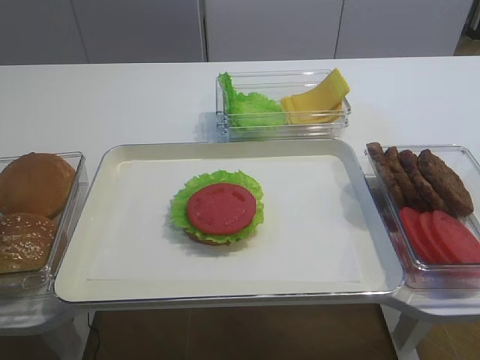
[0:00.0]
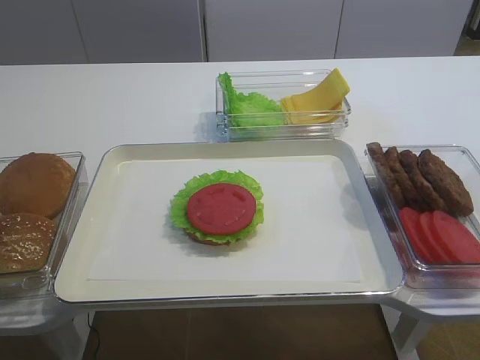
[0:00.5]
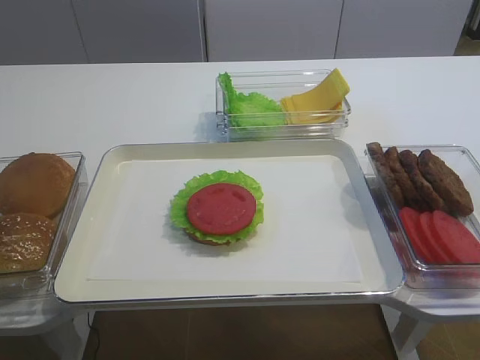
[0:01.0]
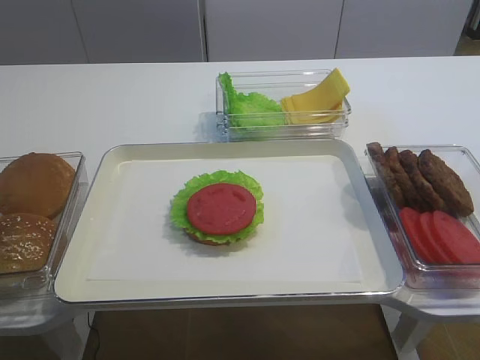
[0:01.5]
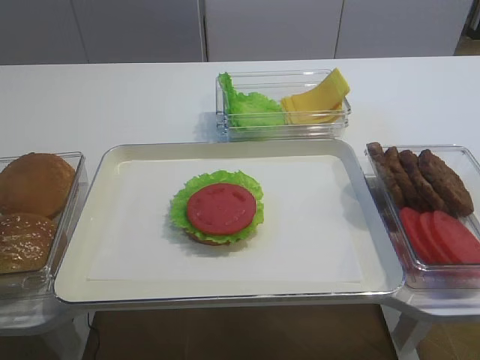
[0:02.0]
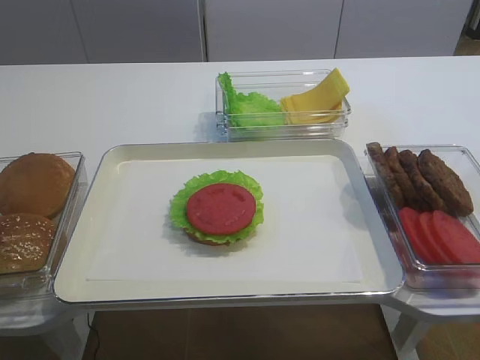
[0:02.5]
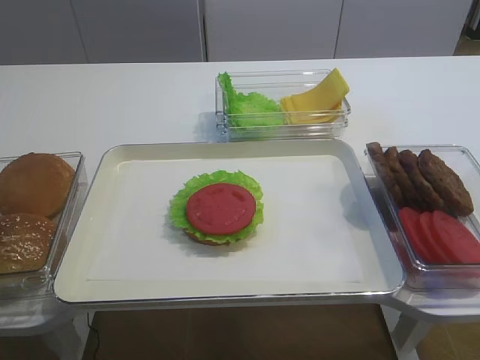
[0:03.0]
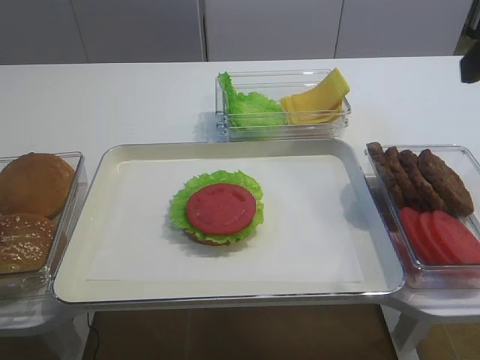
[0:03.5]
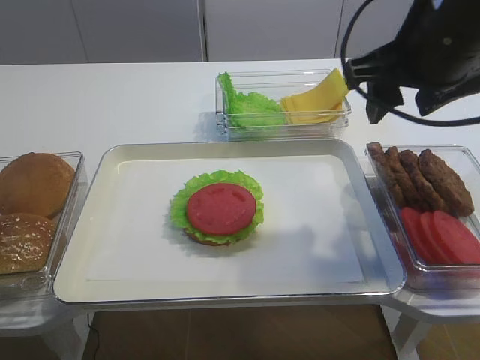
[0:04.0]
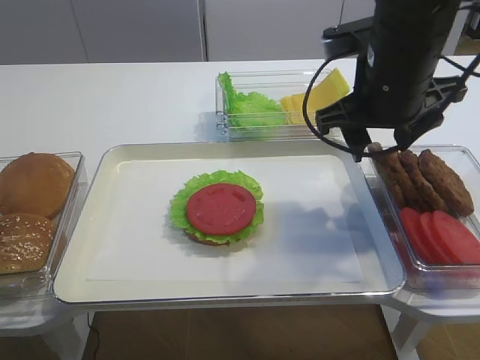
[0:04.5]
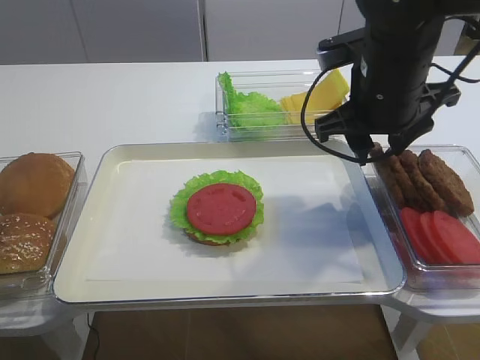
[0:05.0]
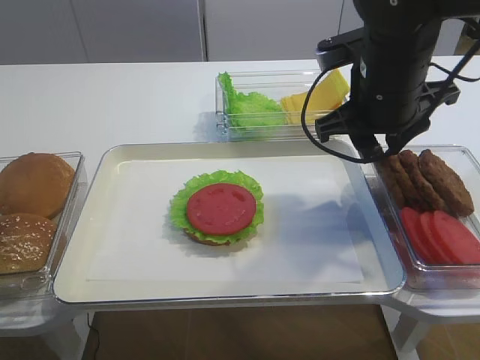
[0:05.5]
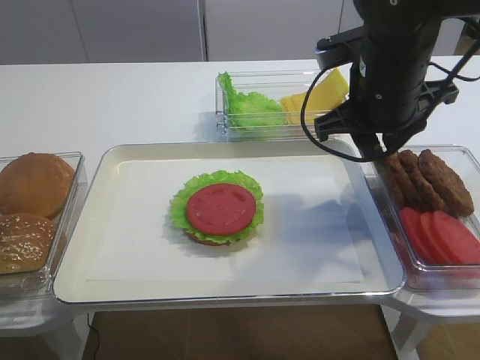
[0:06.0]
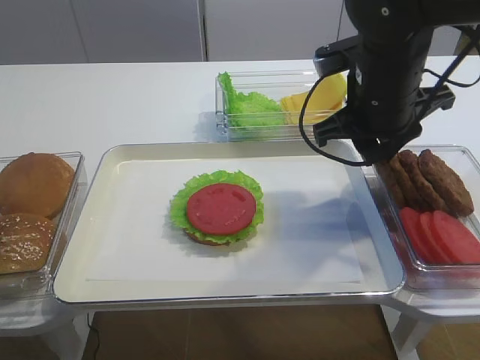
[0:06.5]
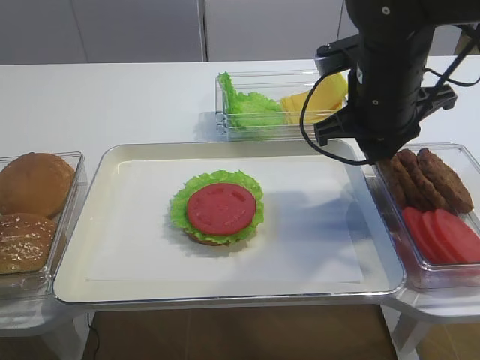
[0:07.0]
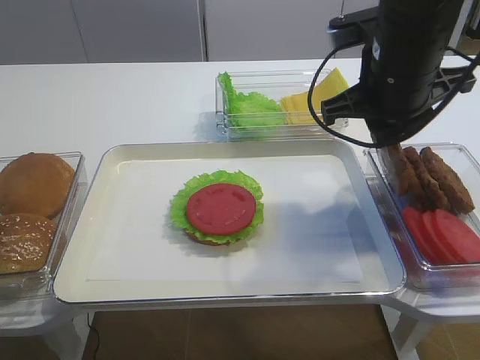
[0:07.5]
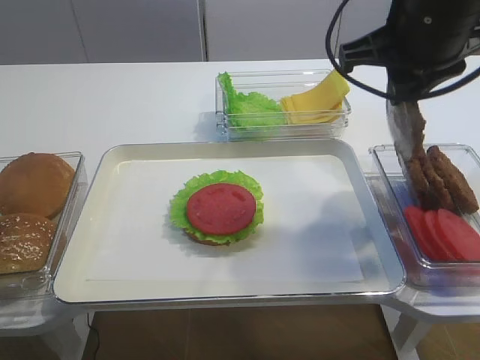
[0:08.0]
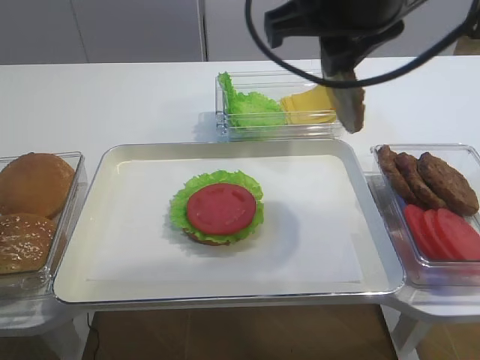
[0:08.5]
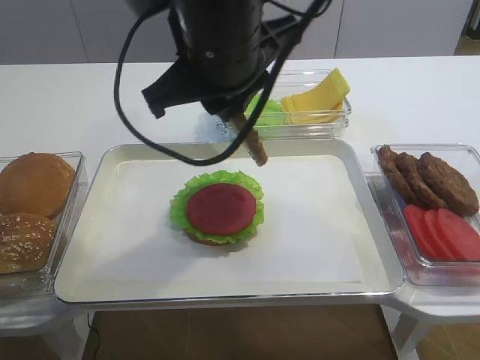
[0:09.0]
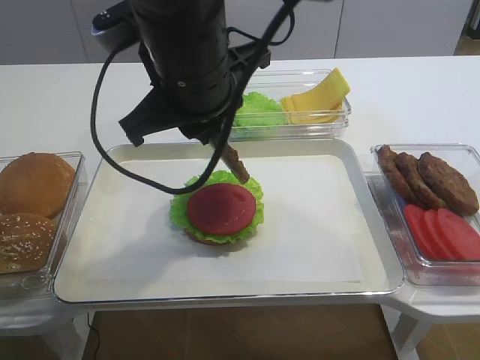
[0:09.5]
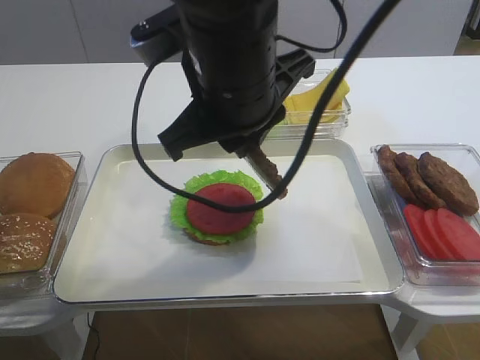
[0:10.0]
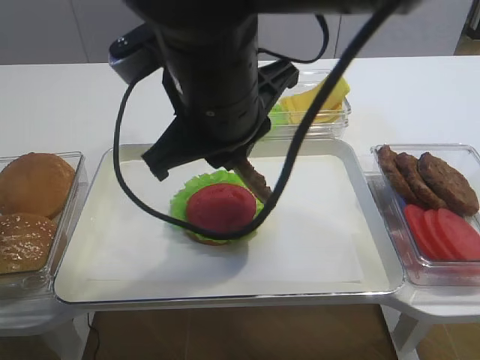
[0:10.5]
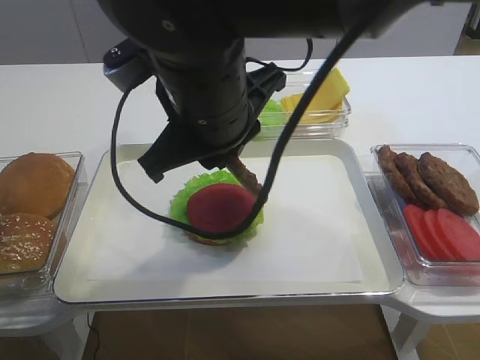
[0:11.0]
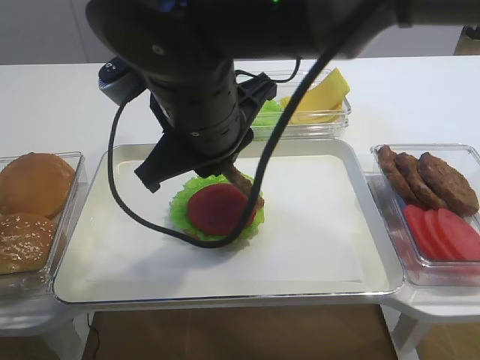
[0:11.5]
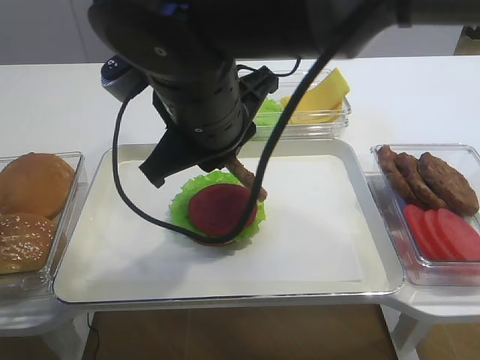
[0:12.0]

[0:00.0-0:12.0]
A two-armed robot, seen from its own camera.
Step, 0:00.0 to 0:07.5: Pick up the cutlet with the right gripper.
0:02.0 to 0:04.0: The right gripper goes some 30 cm forward and to the left, and opens its fingers.
0:04.0 to 0:06.0: The right gripper travels downward by roughly 5 cm, and closes its fingers.
0:06.0 to 0:08.0: The right gripper travels upward by approximately 5 cm.
0:08.0 to 0:10.0: The right gripper is displaced to the left by roughly 15 cm.
0:10.0 to 0:12.0: The grippers move only a little.

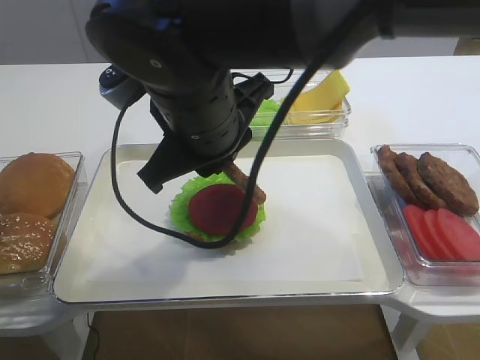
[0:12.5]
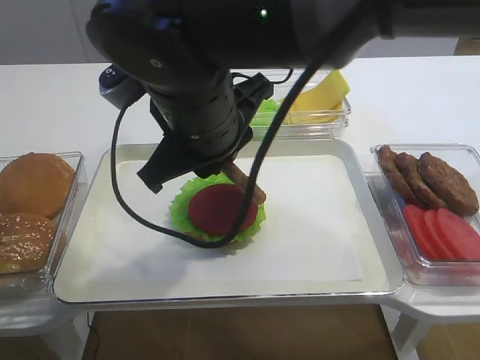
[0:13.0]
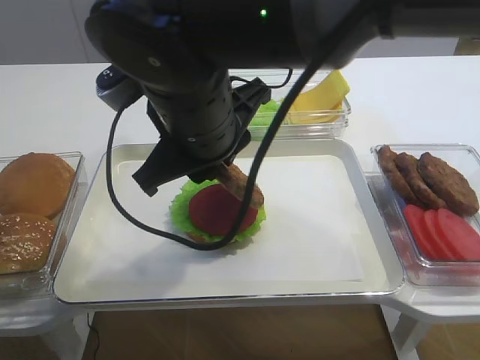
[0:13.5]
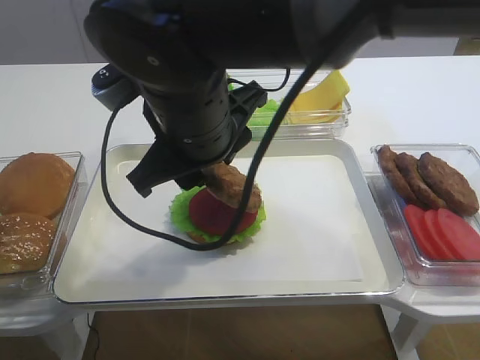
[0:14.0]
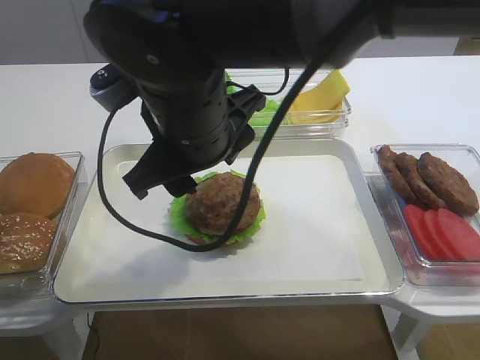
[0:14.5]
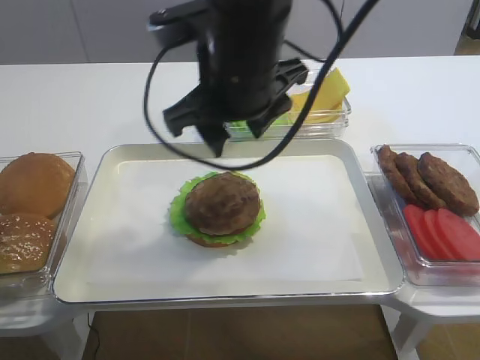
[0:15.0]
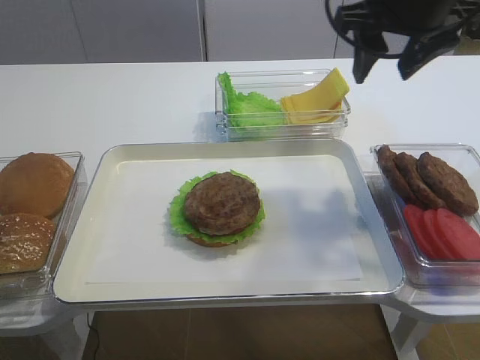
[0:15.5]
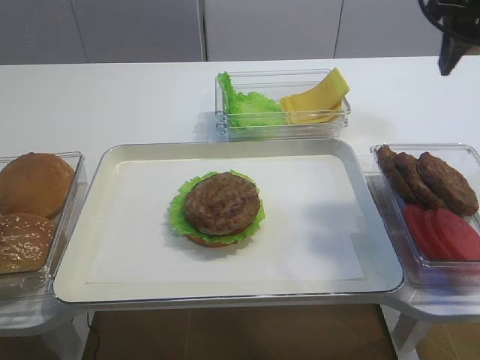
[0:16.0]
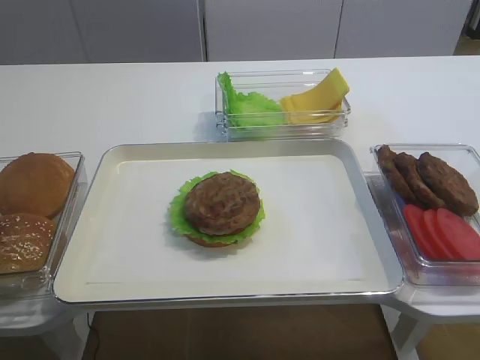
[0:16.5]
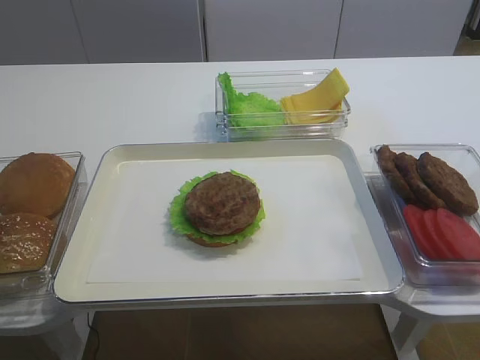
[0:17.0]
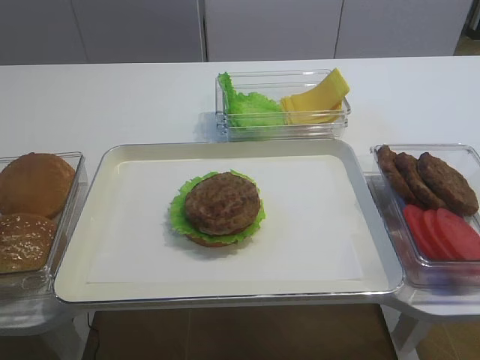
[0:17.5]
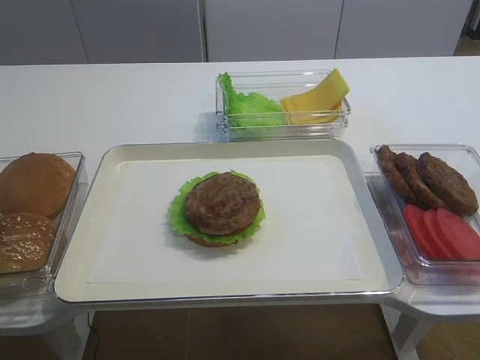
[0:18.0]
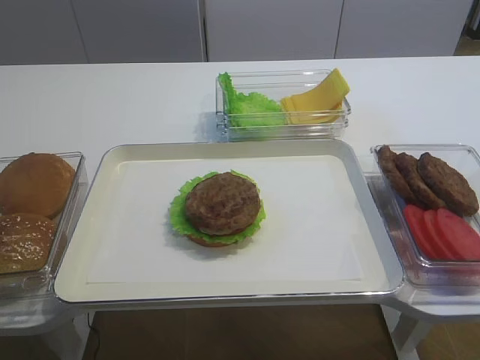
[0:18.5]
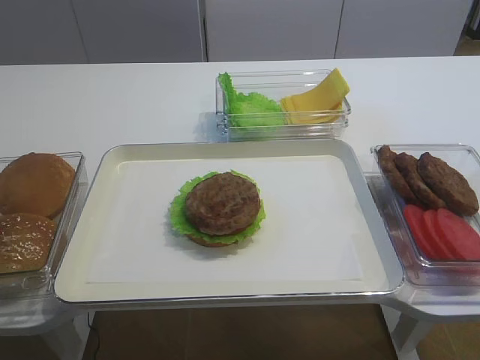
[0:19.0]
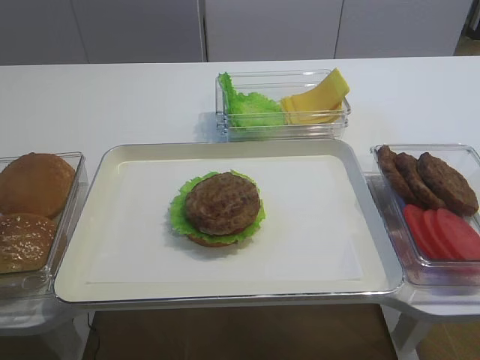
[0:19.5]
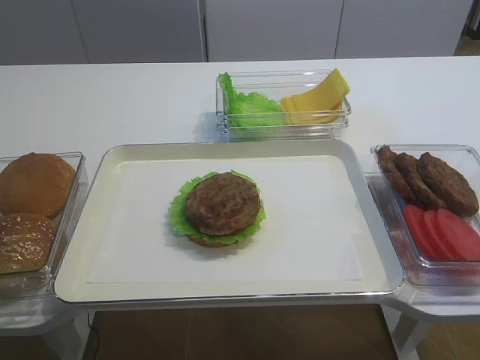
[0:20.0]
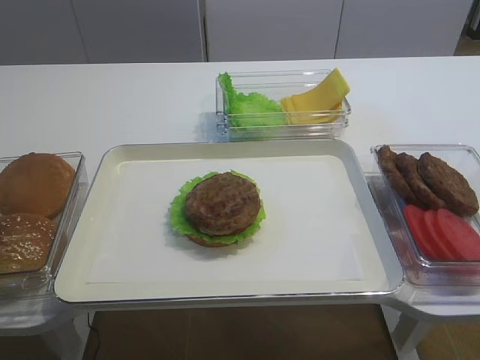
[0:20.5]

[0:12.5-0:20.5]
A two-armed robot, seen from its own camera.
0:12.5 to 0:14.5: The right gripper opens.
0:14.5 to 0:16.5: The right gripper shifts roughly 30 cm to the right.
0:16.5 to 0:18.5: The right gripper is displaced backward and downward by about 25 cm.

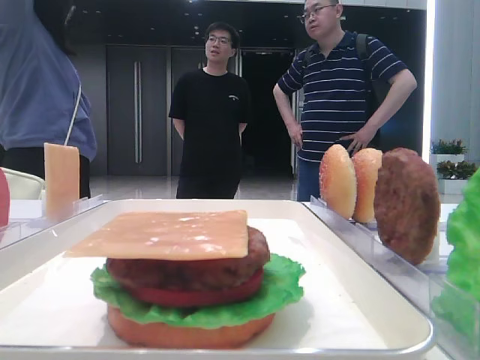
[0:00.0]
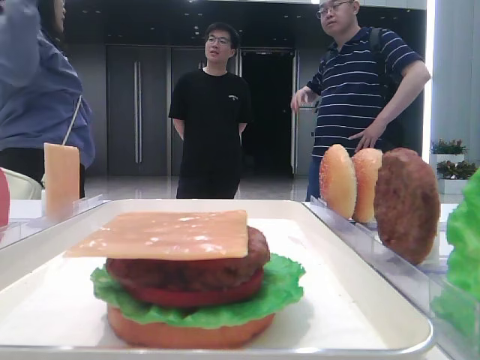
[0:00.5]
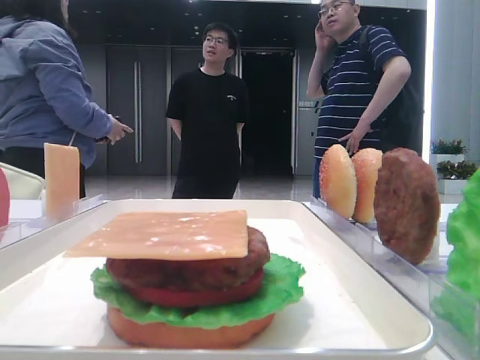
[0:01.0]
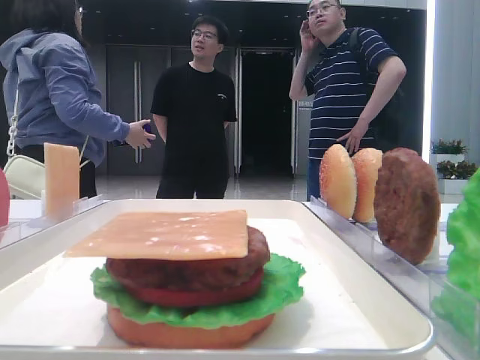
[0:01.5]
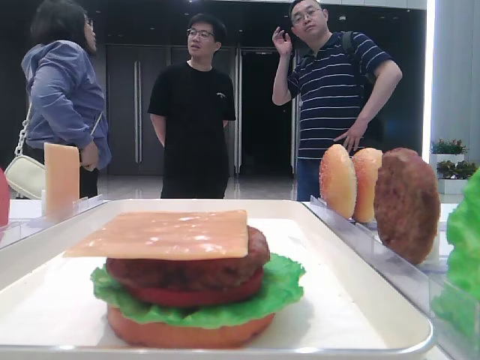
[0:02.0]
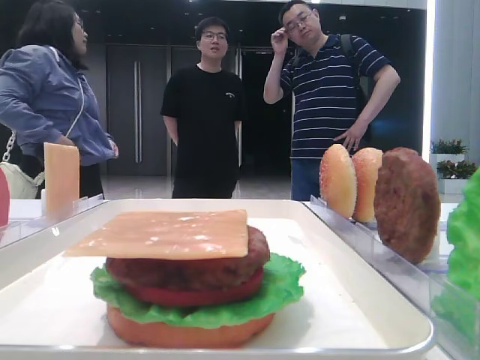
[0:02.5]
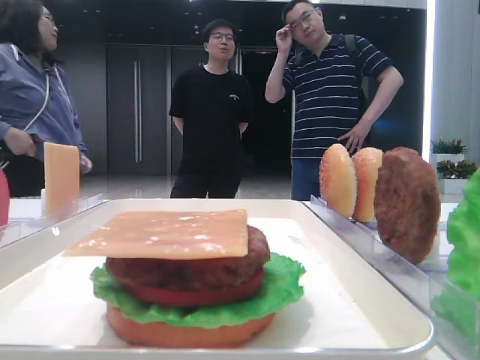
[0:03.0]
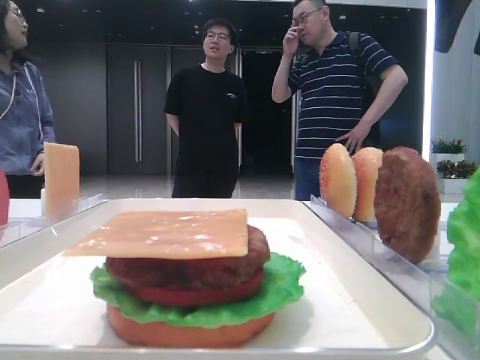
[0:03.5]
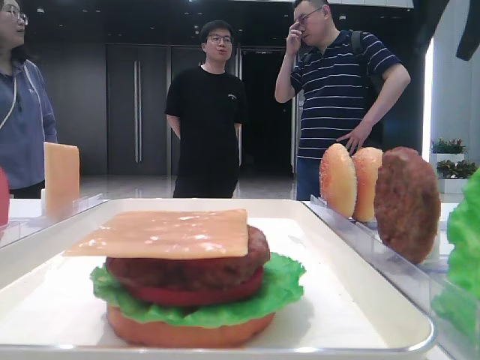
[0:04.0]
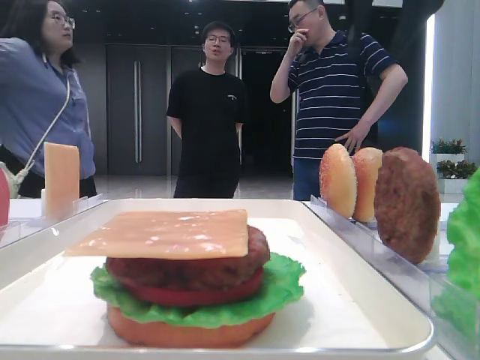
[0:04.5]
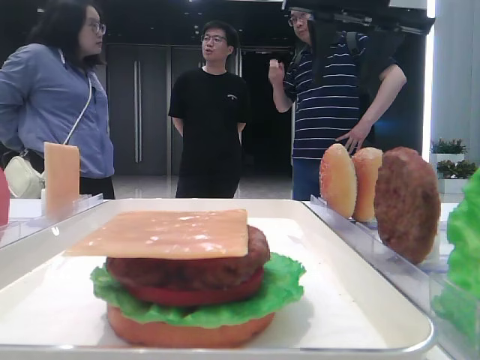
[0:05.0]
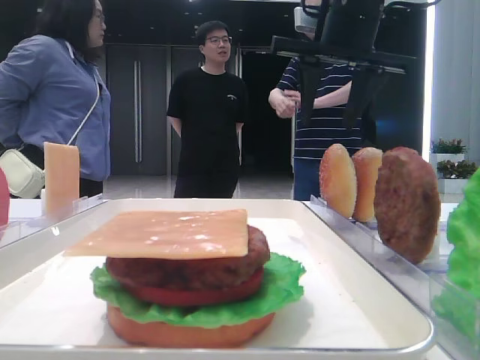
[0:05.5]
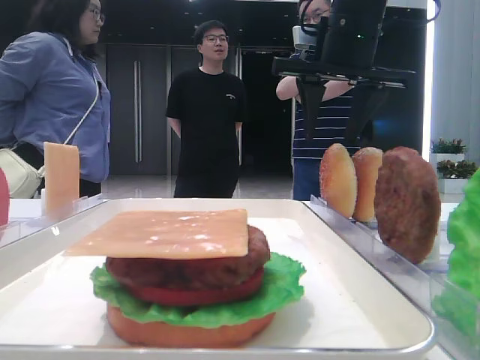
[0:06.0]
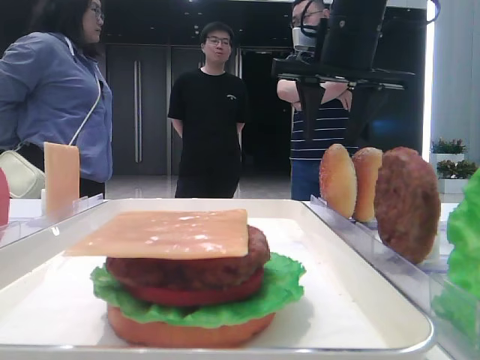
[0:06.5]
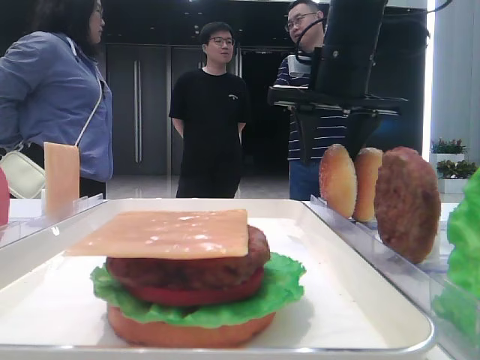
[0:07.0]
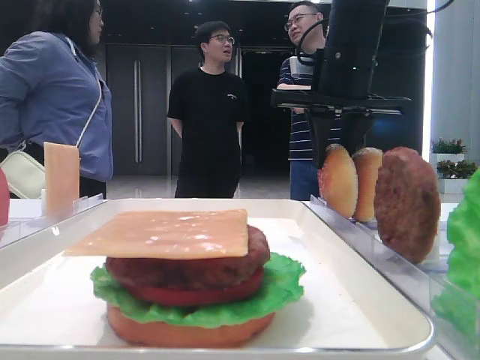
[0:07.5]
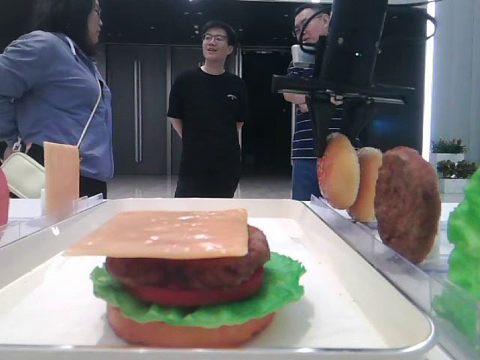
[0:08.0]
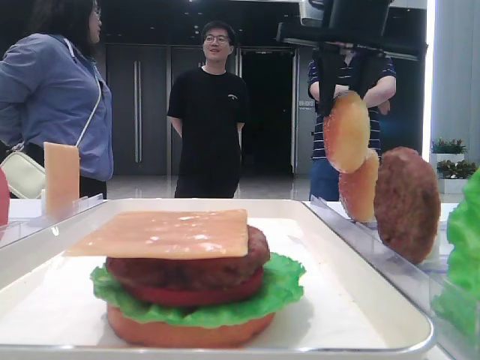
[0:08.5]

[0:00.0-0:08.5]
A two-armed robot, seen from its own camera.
Step, 0:00.0 to 0:07.5: Pick up the top bread slice with the right hand.
0:02.0 to 0:04.0: The right gripper moves forward, roughly 30 cm.
0:04.0 to 0:06.5: The right gripper moves to the left and downward, about 15 cm.
0:06.5 to 0:08.5: The right gripper closes up.
